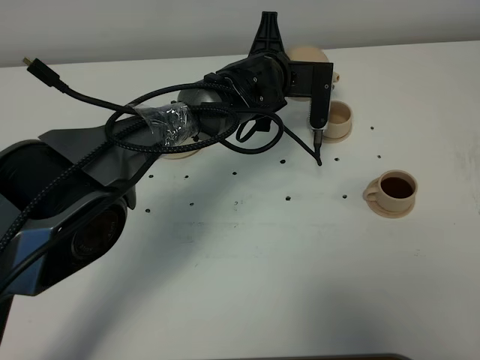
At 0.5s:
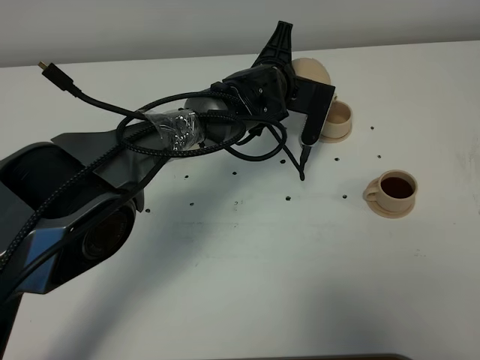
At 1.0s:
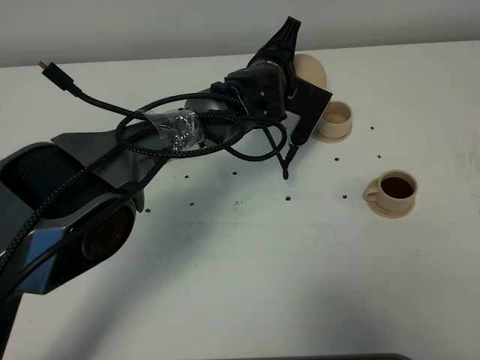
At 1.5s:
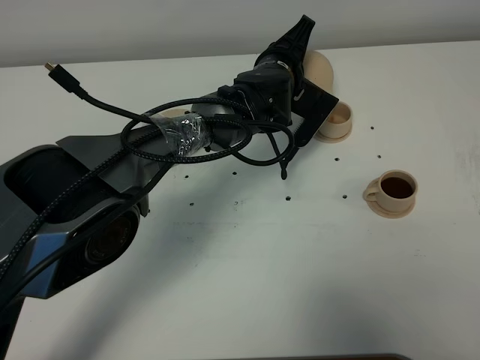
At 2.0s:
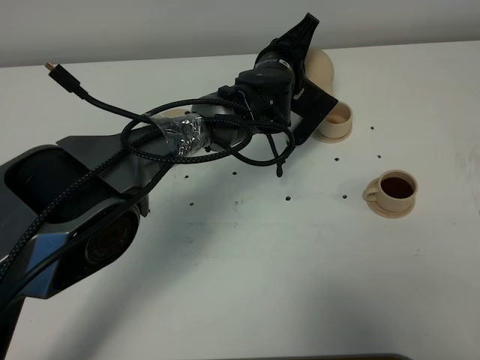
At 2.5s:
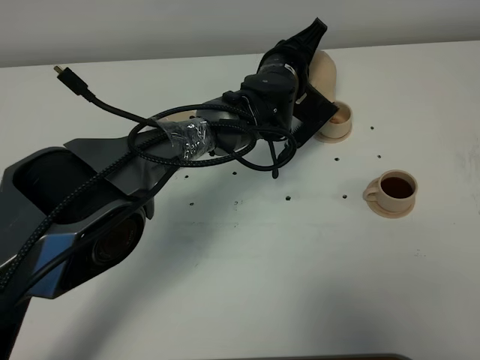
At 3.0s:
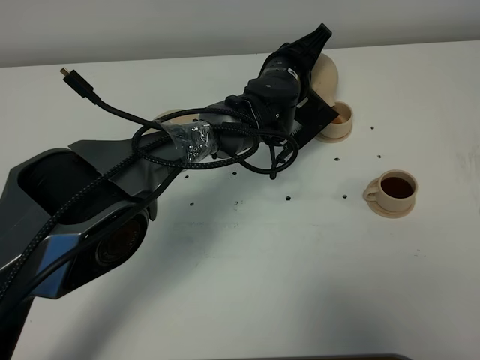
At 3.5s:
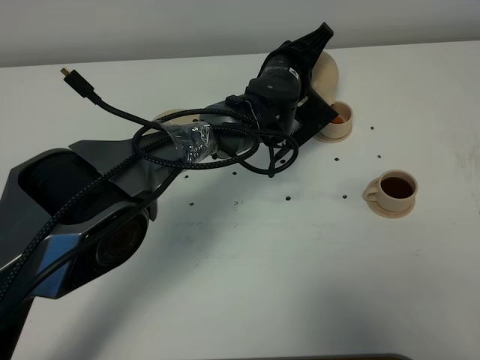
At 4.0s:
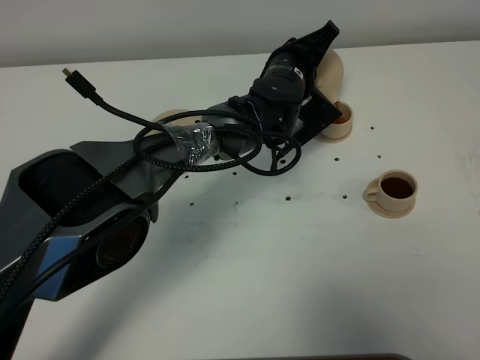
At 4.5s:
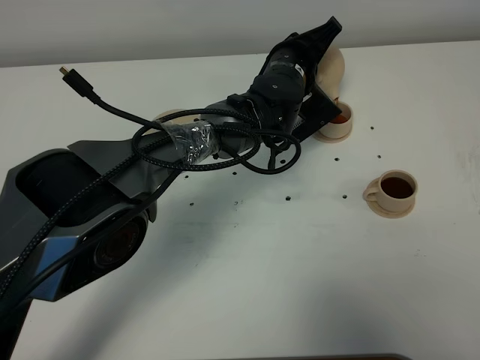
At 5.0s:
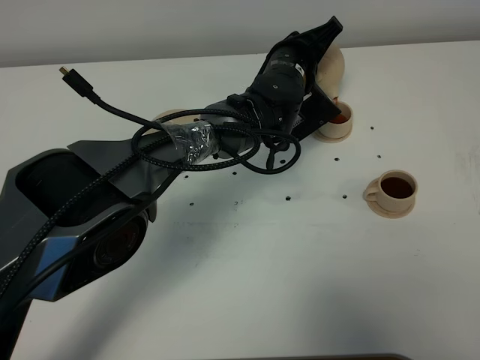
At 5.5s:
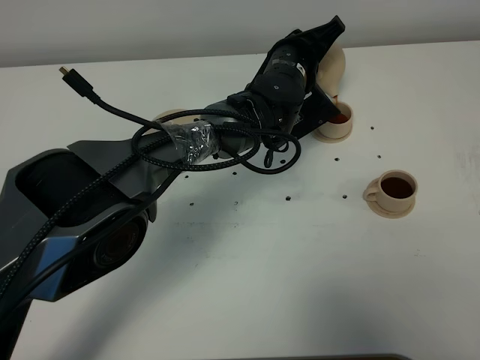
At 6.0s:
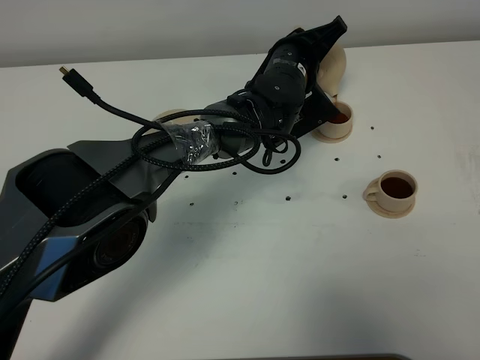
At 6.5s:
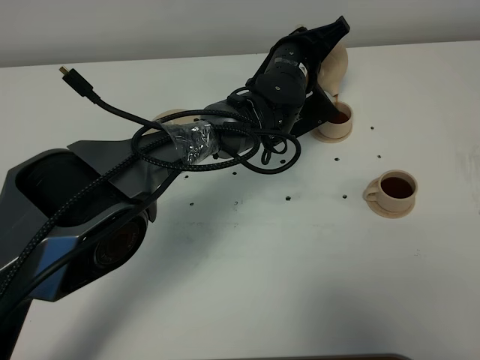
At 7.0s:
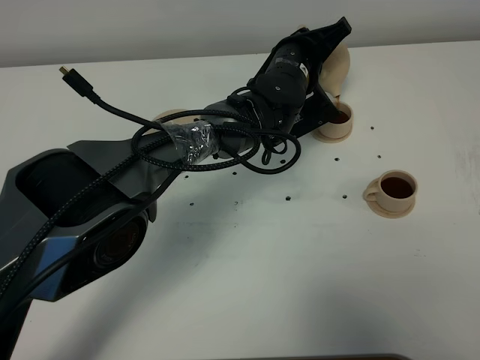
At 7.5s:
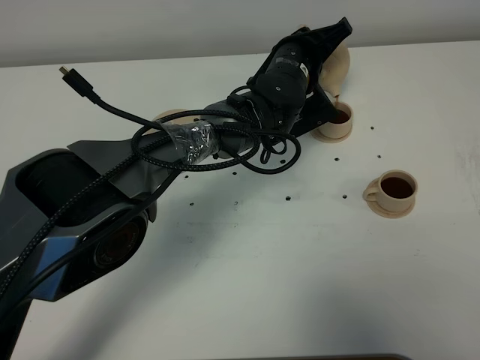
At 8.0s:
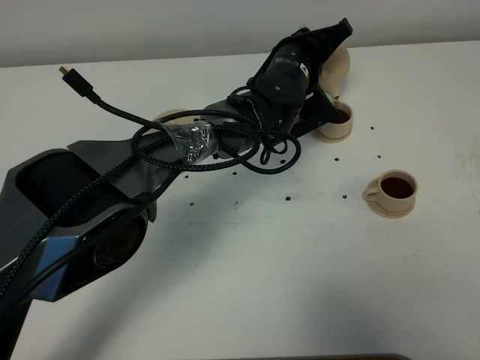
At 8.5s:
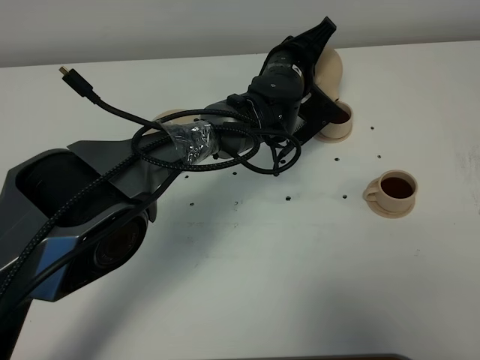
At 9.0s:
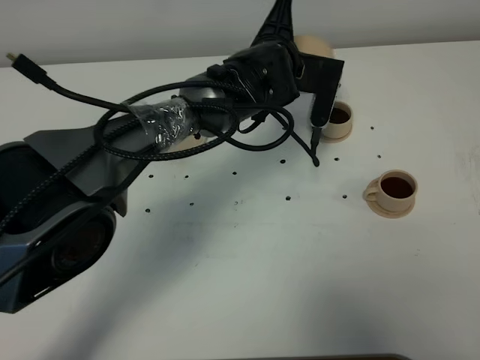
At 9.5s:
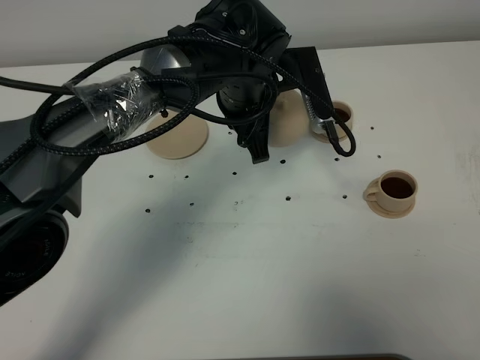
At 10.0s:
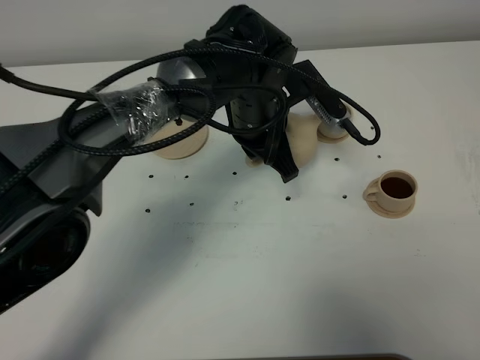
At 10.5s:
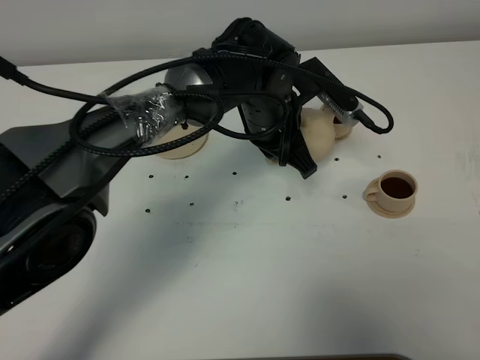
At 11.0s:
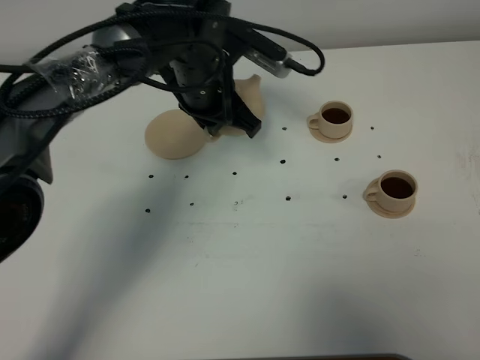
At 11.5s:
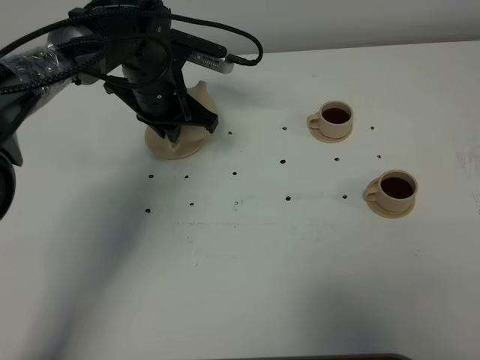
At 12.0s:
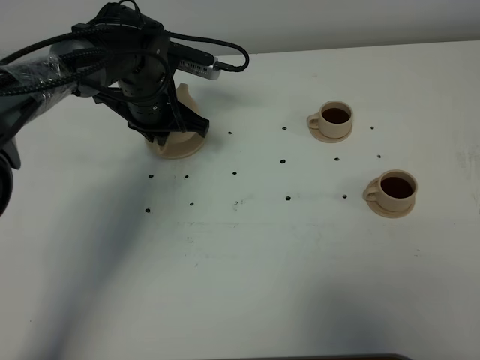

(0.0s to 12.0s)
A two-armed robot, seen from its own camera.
Task of the whole recording: grasp the brown teapot and pour the tea into the two brown teacups one by one, put the brown teapot back in its original place.
Step, 0.0s - 8.5s: Pour tea into the teacup with the left gripper.
2.0s - 6.0s: The grippers stay close to where they were, moving slightly.
6.0s - 8.0s: The two grippers keep their place.
8.0s - 10.0s: The left gripper heads backward, covering roughly 5 cm.
10.0s - 12.0s: The left gripper shifts approximately 15 cm to the left and forward.

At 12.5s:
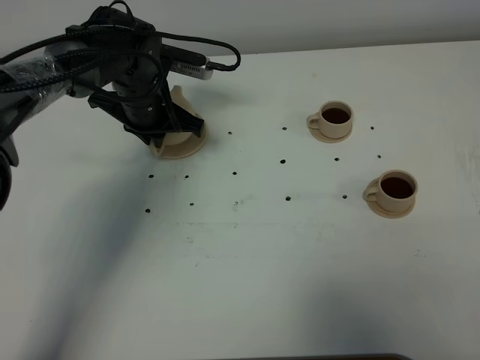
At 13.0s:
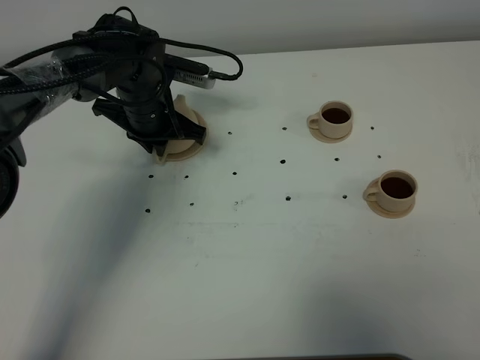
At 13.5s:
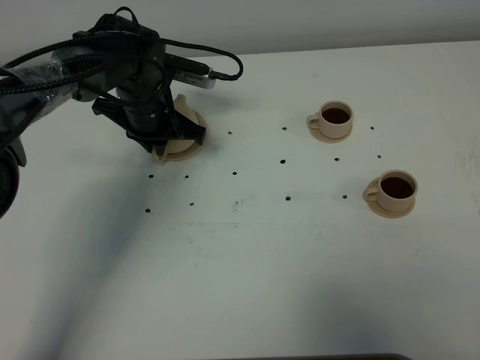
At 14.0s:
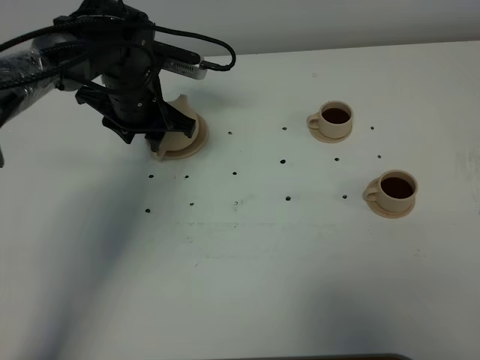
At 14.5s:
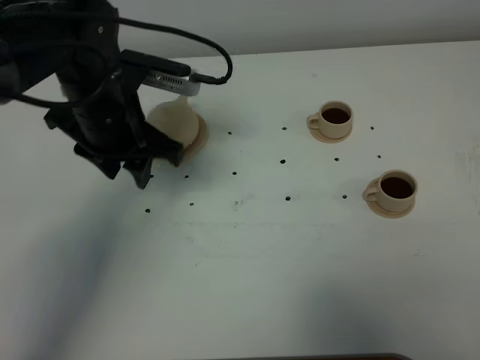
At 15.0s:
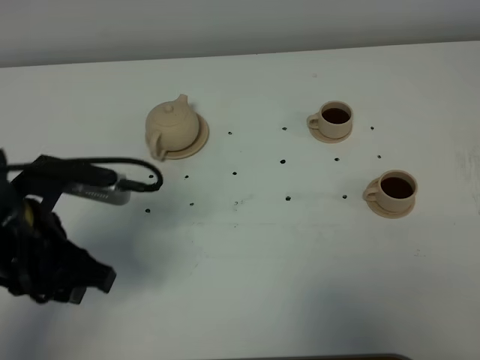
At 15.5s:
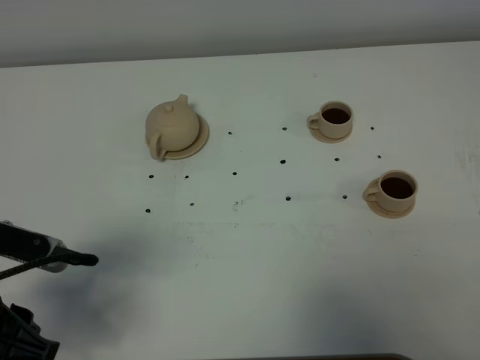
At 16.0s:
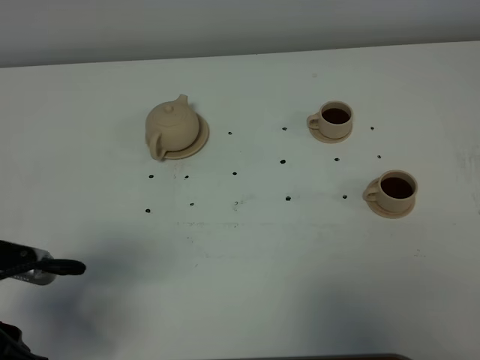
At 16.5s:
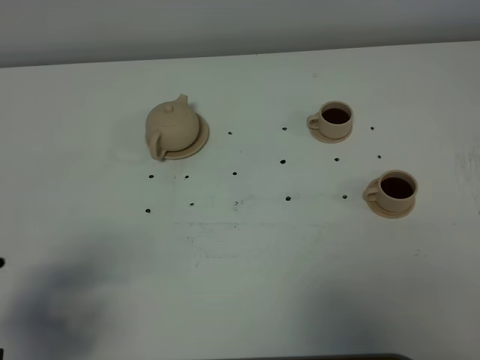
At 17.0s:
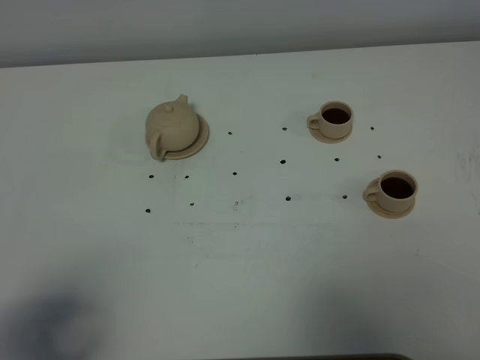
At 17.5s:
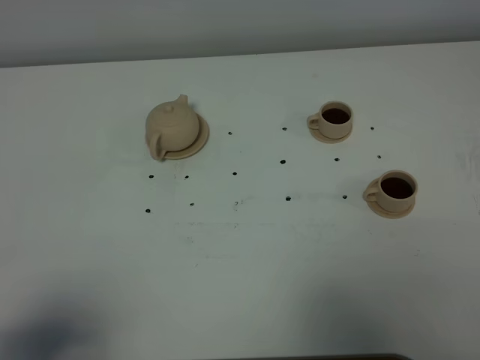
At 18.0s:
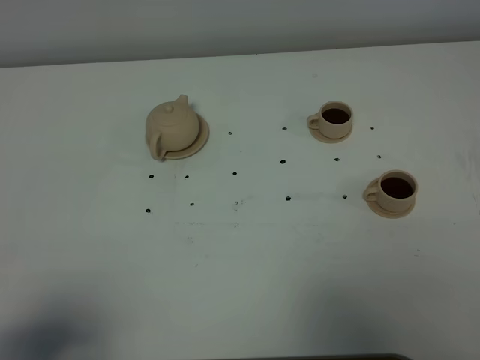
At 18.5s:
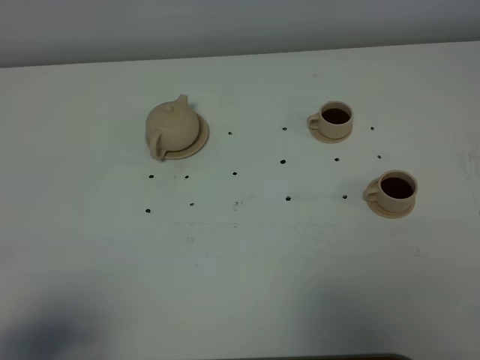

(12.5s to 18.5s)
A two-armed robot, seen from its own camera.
Task of the whole recording: grasp the brown teapot and pour the tea into the two brown teacups one by one, put the brown teapot back in its original place.
12.5s - 14.5s: The left gripper goes about 15 cm backward and upward, and opens its fingers.
14.5s - 16.5s: The left gripper goes about 30 cm backward and to the left.
16.5s - 18.5s: The left gripper travels backward by roughly 10 cm.
